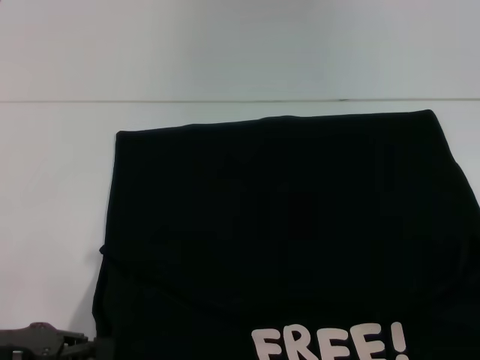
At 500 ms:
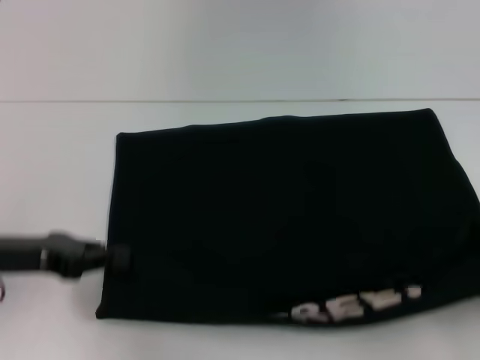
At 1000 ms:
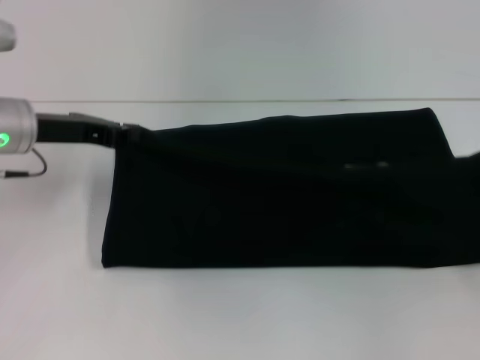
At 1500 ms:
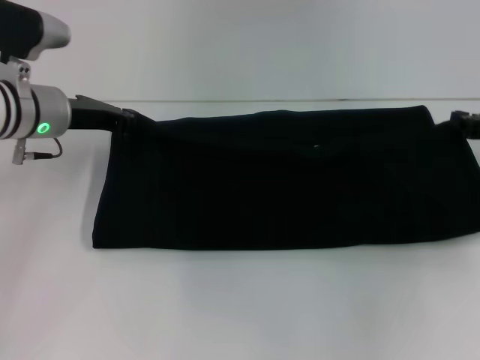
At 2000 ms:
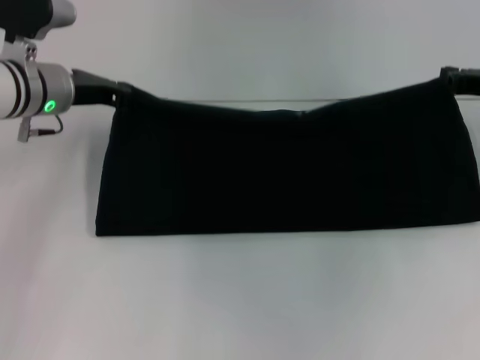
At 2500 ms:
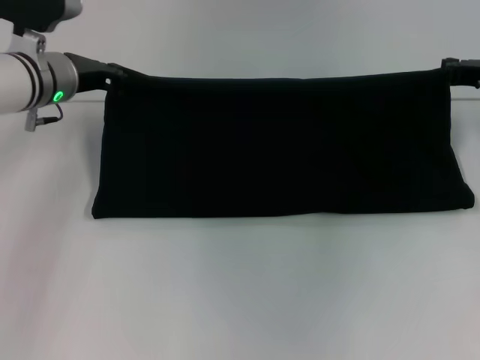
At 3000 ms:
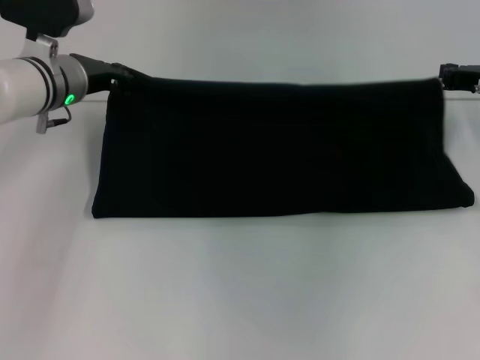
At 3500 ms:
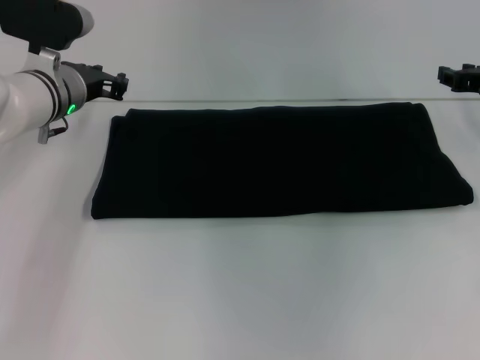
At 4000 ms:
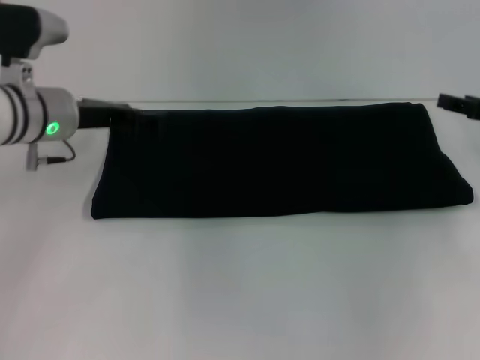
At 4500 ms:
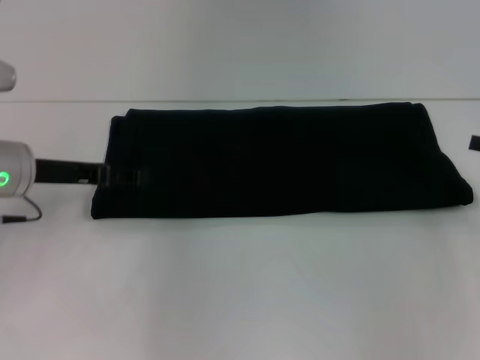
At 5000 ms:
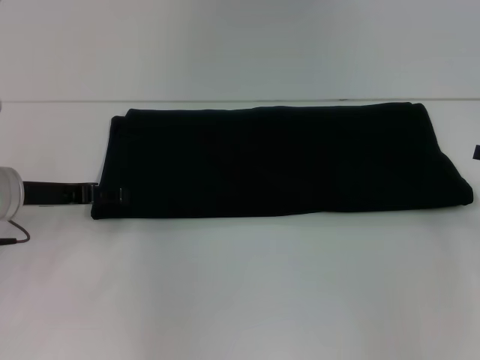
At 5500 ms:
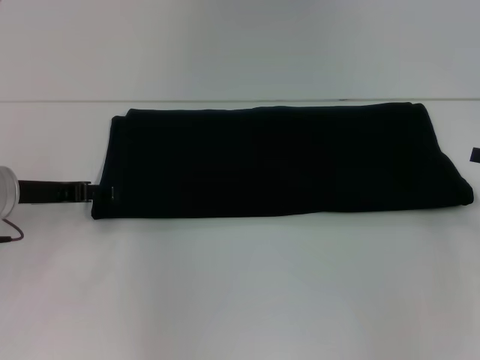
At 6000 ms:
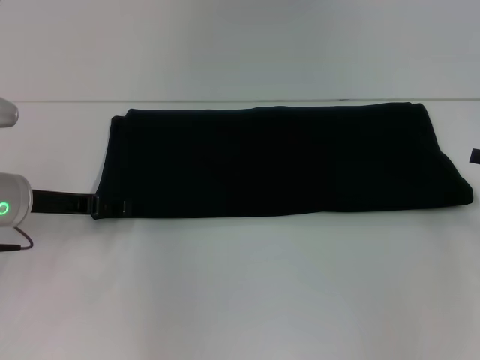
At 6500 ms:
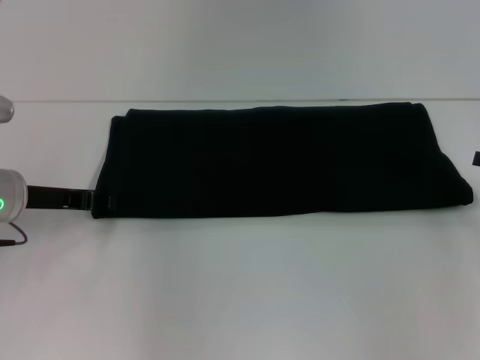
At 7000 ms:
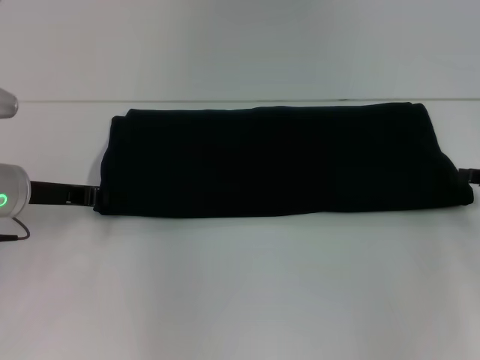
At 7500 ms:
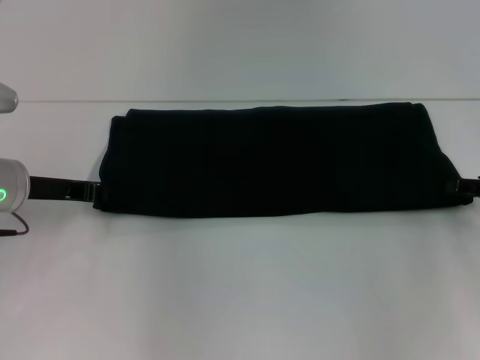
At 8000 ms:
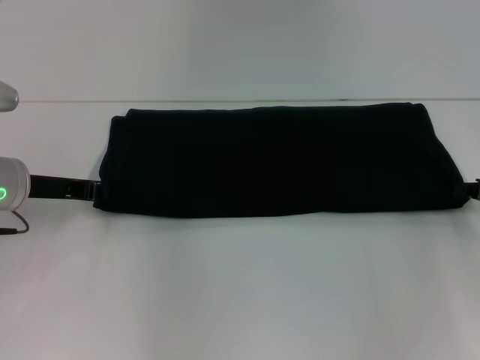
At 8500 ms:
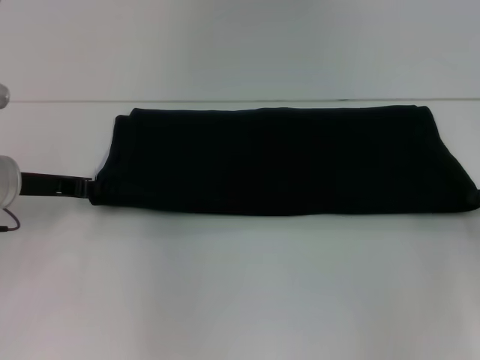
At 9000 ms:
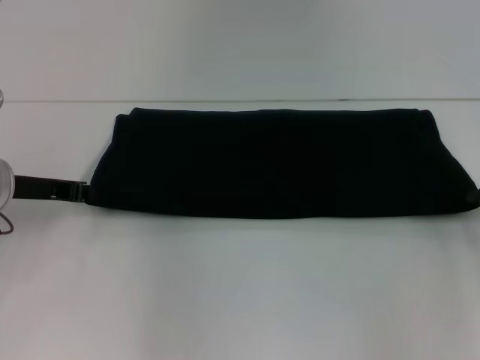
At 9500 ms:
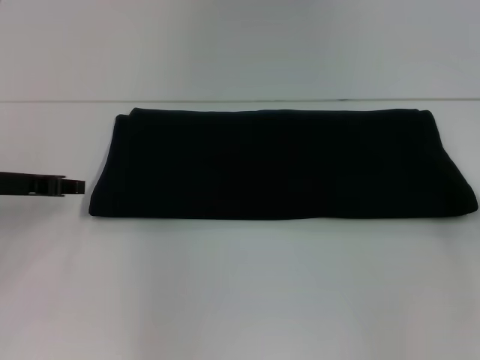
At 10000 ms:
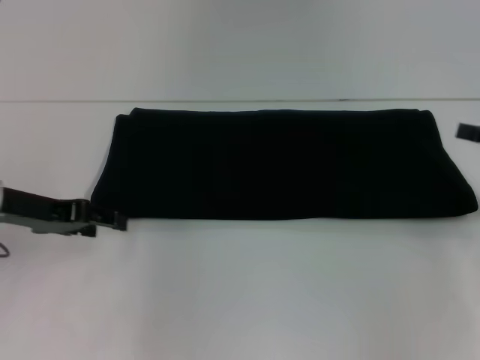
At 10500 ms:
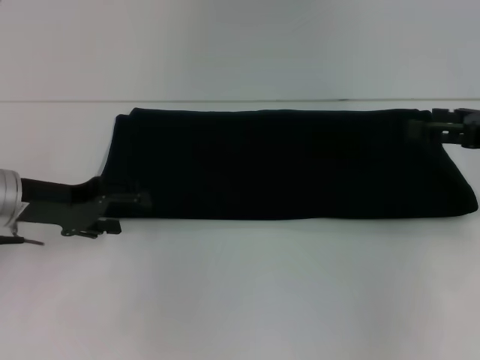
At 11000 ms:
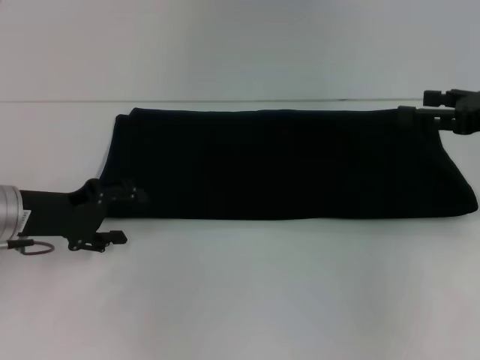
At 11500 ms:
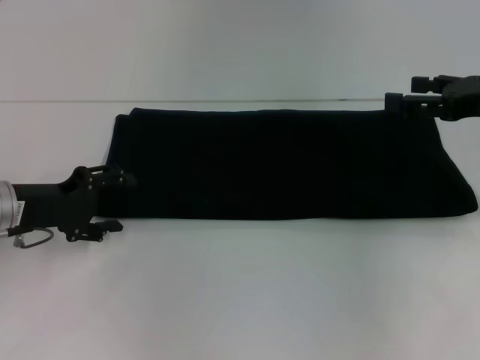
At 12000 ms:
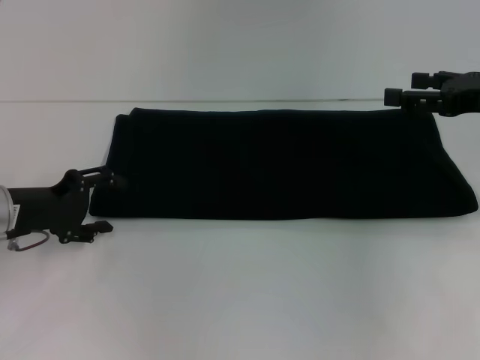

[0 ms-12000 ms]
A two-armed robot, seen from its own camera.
Step, 0 ms to 5000 ms: Fold the clothes with your right hand.
0 ms to 2000 ms: Both grippers travel together forward, roughly 25 cm.
2000 ms to 4000 ms: The right gripper opens its fingers. The left gripper opens its fingers.
4000 ms to 6000 ms: The two grippers go approximately 5 cm backward.
6000 ms to 8000 ms: The left gripper closes.
8000 ms to 10000 ms: The left gripper opens up. Meanwhile the right gripper travels upward by roughly 5 cm, and opens.
10000 ms to 12000 ms: The left gripper ends up about 5 cm from where it was; the right gripper goes some 5 cm to the left.

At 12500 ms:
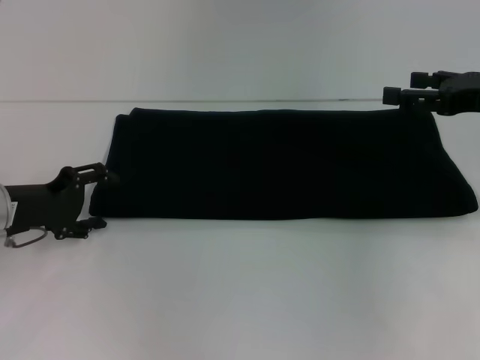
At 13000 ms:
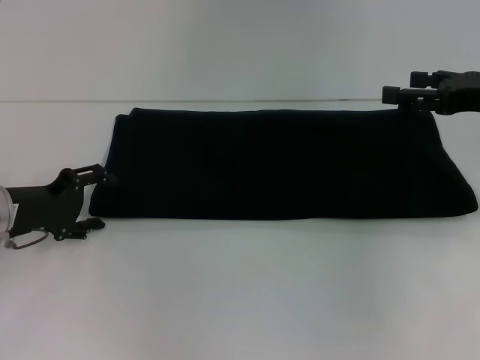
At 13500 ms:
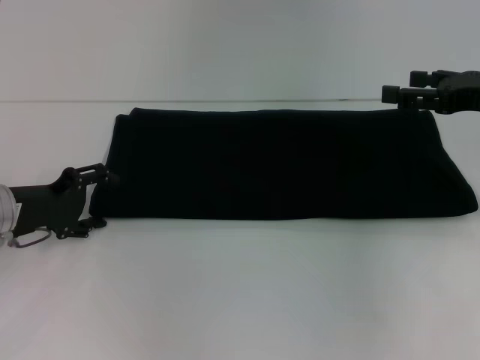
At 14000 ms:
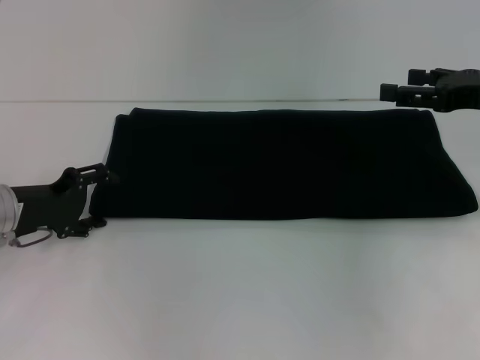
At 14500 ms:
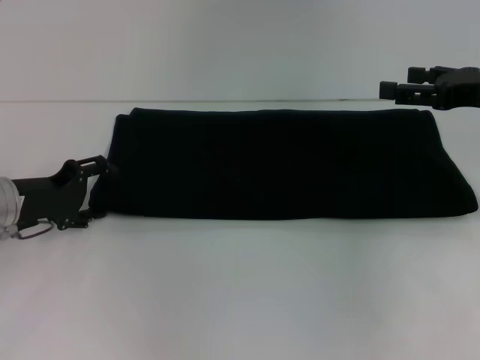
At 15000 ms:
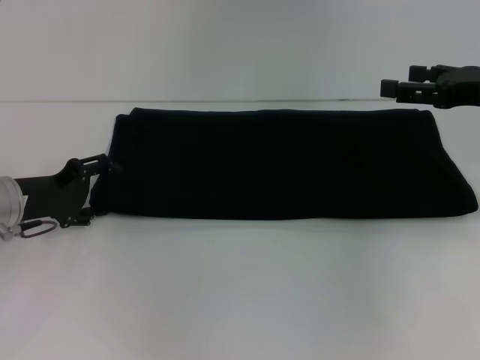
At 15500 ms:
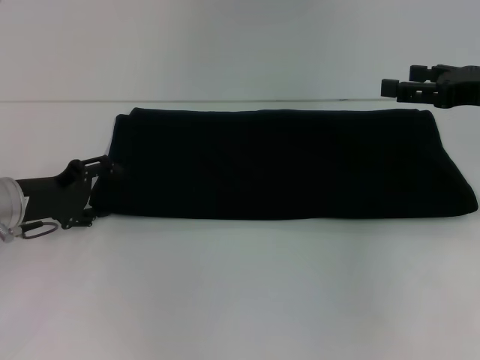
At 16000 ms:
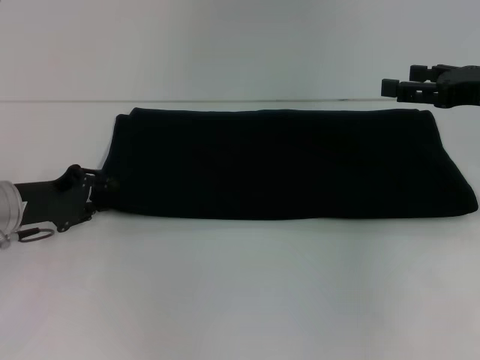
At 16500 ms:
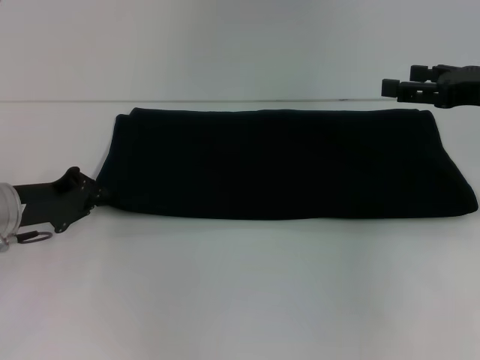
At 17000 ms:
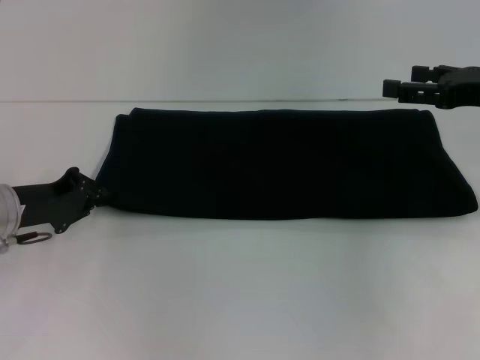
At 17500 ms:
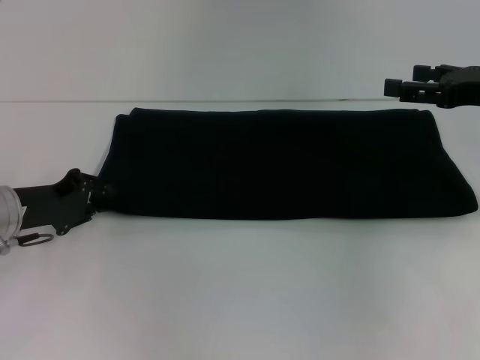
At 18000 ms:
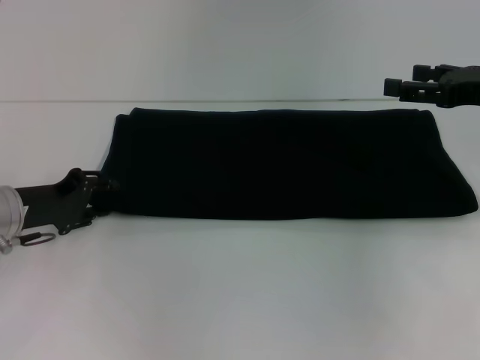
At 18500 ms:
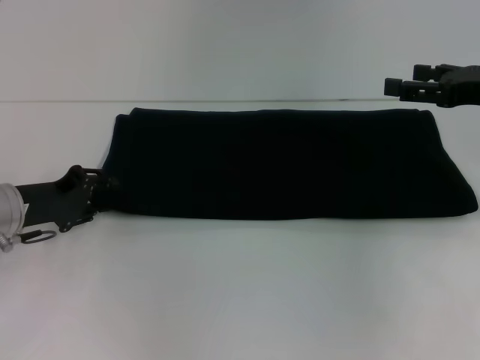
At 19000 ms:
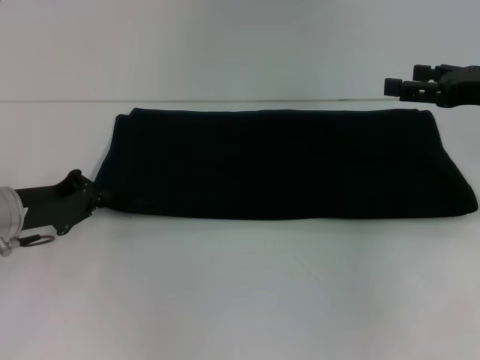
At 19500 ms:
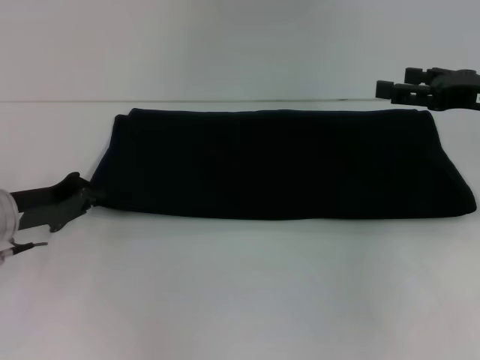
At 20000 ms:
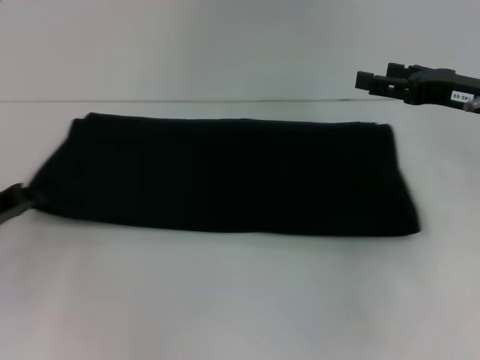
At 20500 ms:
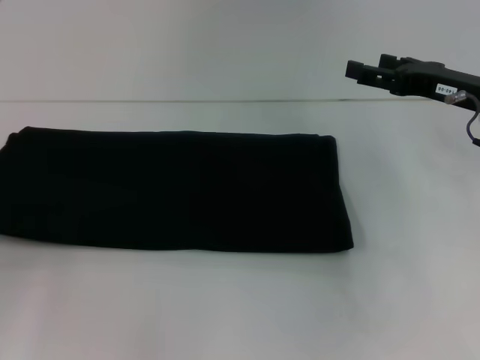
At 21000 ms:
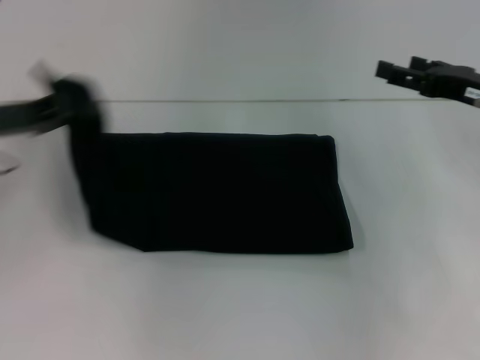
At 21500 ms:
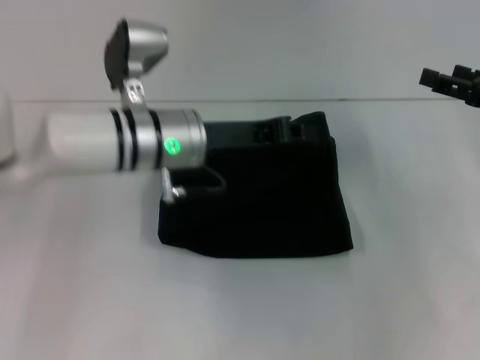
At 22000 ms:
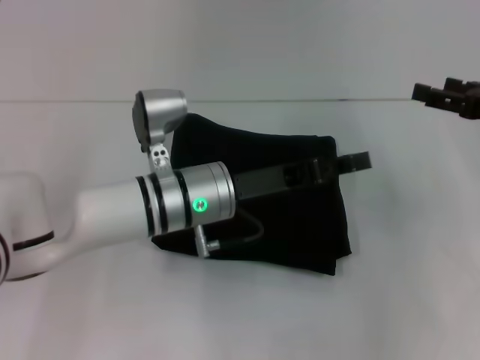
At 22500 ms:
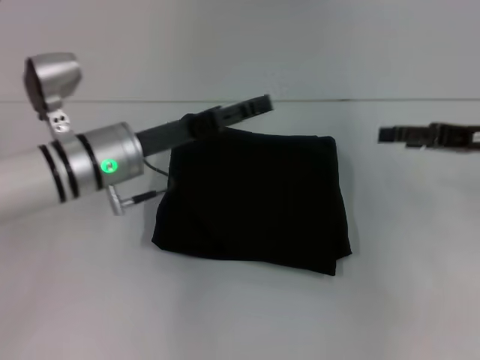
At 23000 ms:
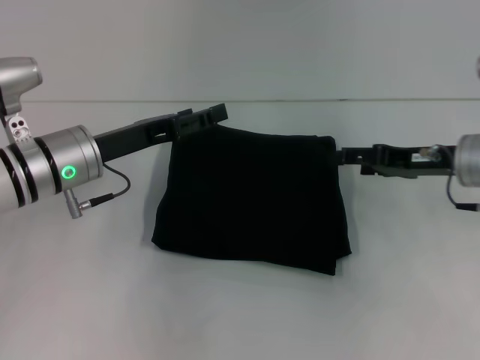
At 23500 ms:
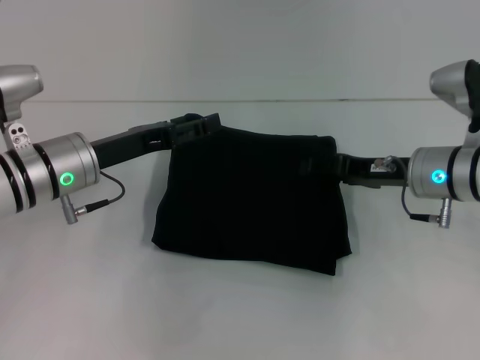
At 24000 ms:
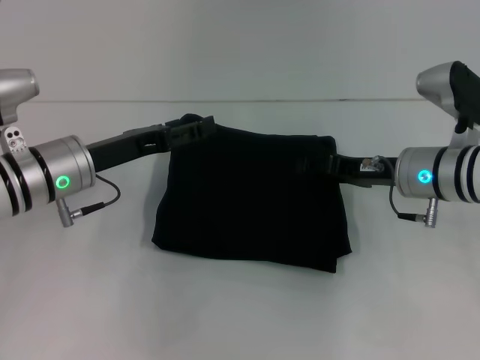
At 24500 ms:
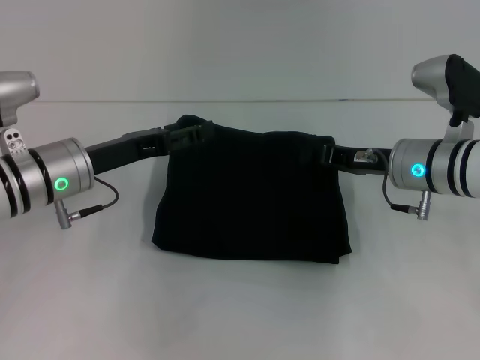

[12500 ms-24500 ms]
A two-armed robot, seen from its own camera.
Step, 12500 ms to 22500 ms: Fold the clothes with your left hand.
12500 ms to 14500 ms: Neither gripper changes place.
14500 ms to 16500 ms: The left gripper closes its fingers.
16500 ms to 18500 ms: The left gripper opens up.
18500 ms to 20500 ms: The left gripper moves to the left and backward, roughly 15 cm, and closes its fingers. The right gripper shifts by about 5 cm.
20500 ms to 22500 ms: The left gripper shifts some 25 cm to the right, and opens up.
22500 ms to 24500 ms: The right gripper travels to the left and downward by some 15 cm, and closes up. Meanwhile the left gripper moves to the left, roughly 5 cm.

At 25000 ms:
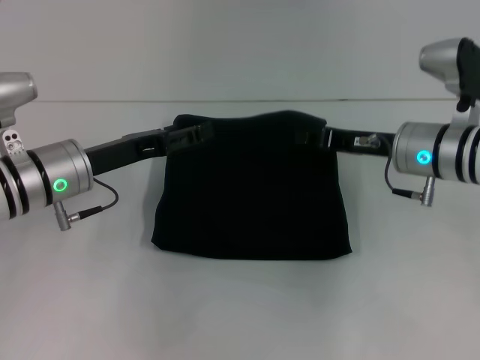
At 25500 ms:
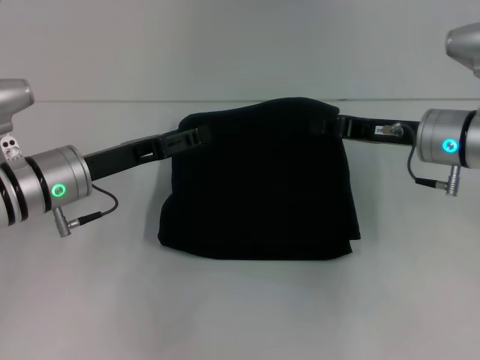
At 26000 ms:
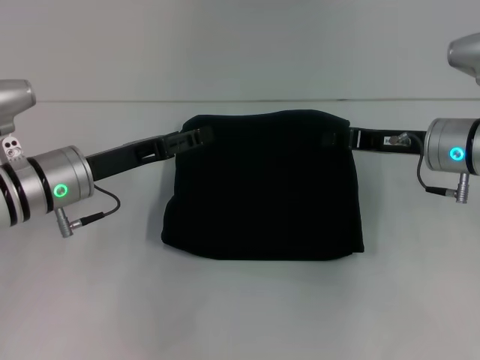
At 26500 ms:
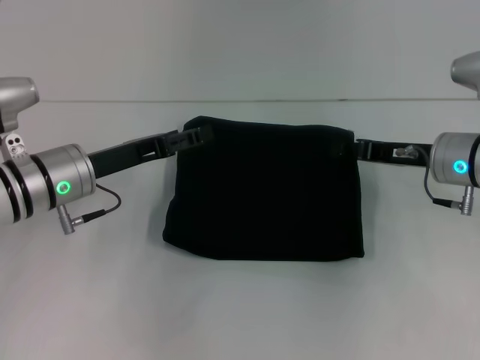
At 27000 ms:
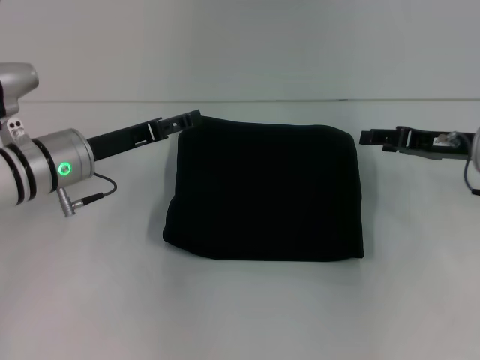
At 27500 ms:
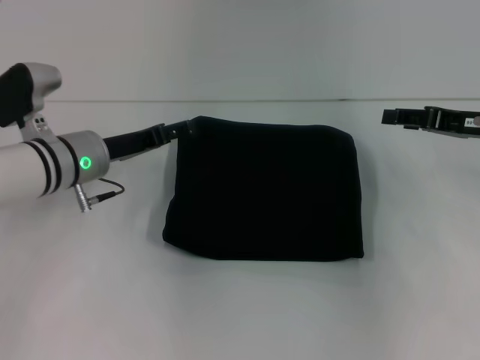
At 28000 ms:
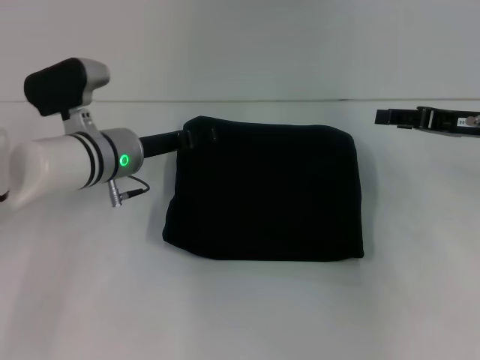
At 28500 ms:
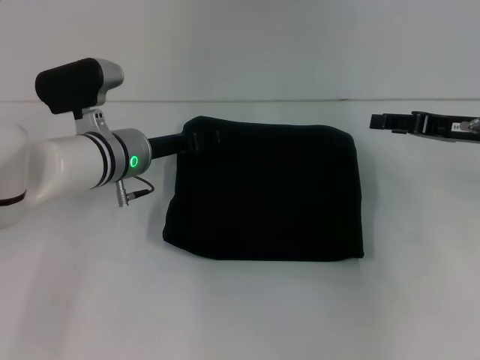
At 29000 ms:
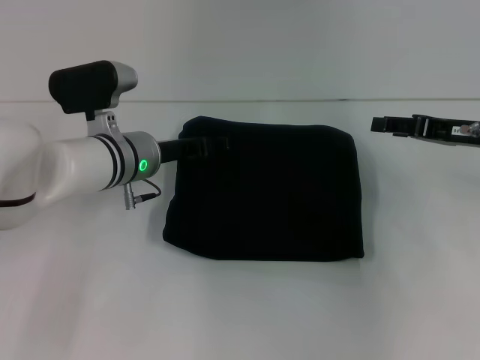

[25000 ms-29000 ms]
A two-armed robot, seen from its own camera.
25000 ms to 27000 ms: The right gripper heads to the right, covering some 10 cm, and opens its fingers.
27000 ms to 29000 ms: The left gripper shifts roughly 5 cm to the right.
